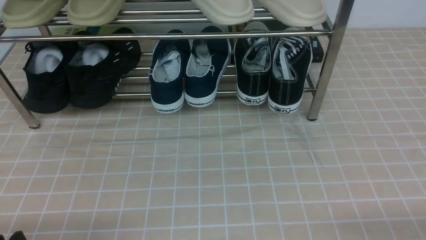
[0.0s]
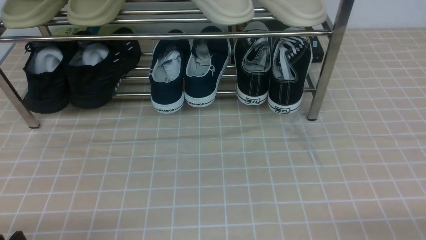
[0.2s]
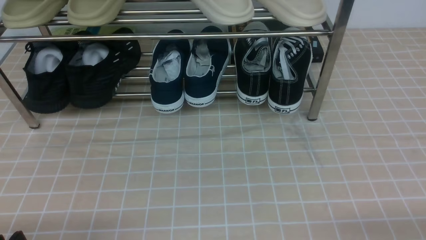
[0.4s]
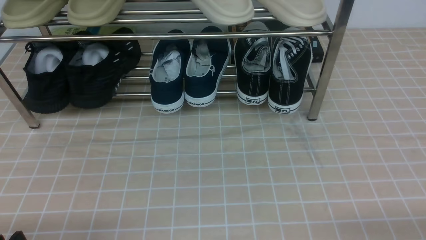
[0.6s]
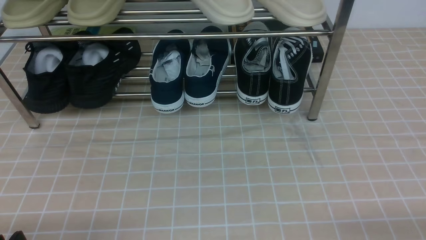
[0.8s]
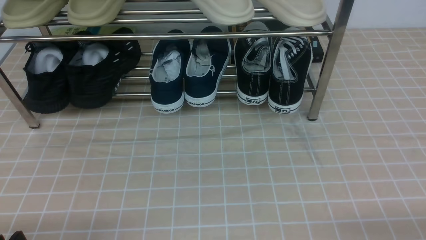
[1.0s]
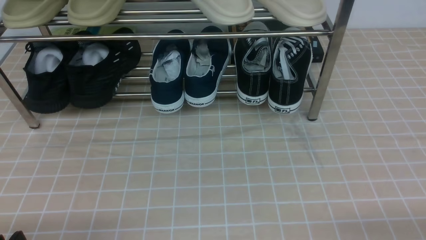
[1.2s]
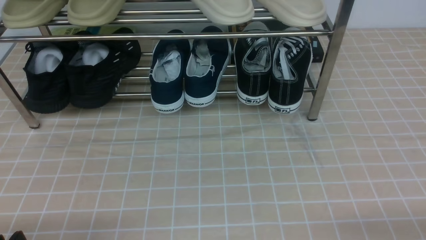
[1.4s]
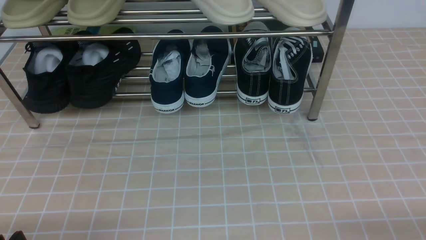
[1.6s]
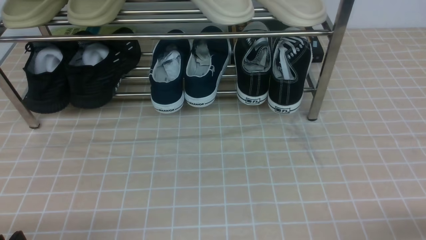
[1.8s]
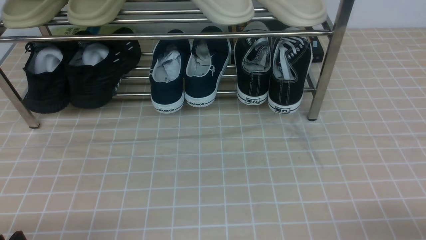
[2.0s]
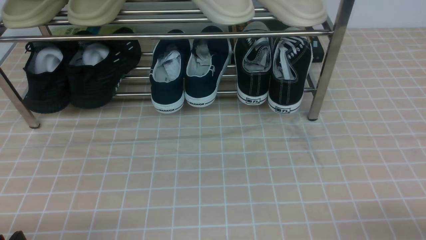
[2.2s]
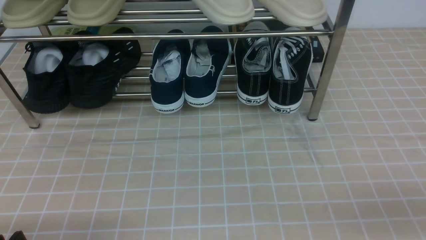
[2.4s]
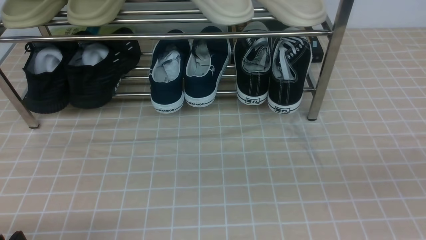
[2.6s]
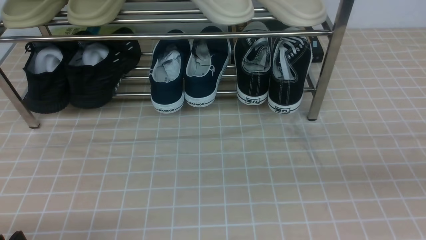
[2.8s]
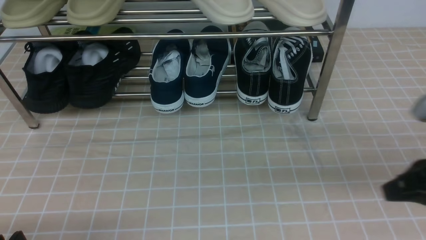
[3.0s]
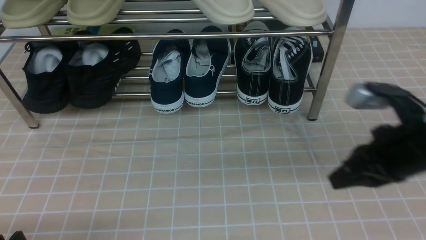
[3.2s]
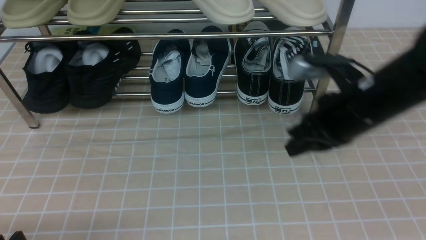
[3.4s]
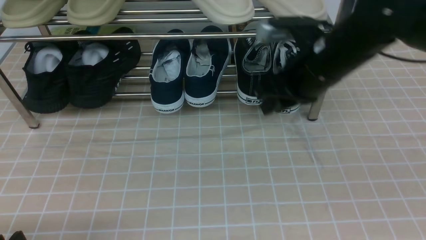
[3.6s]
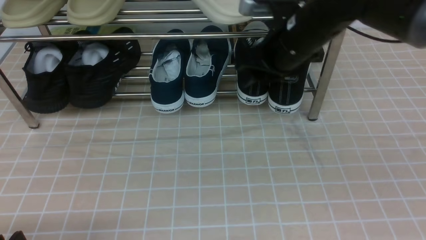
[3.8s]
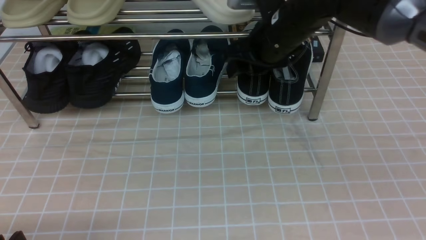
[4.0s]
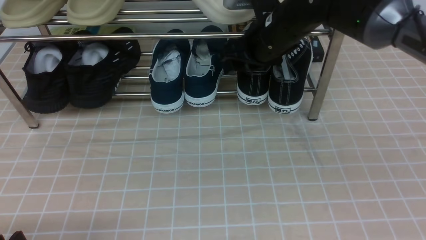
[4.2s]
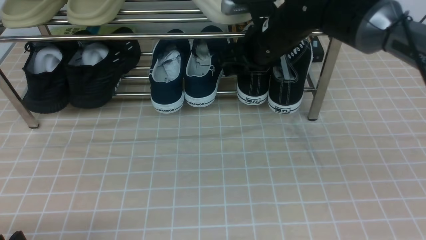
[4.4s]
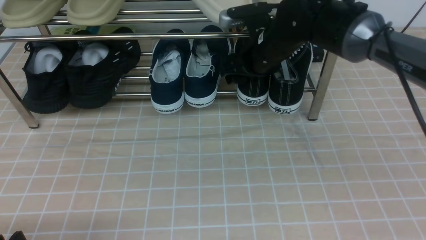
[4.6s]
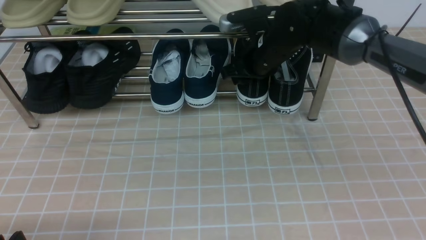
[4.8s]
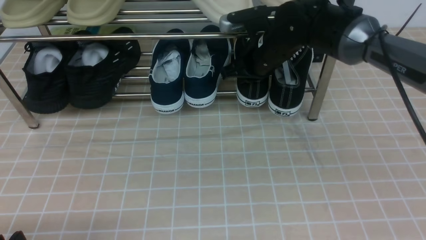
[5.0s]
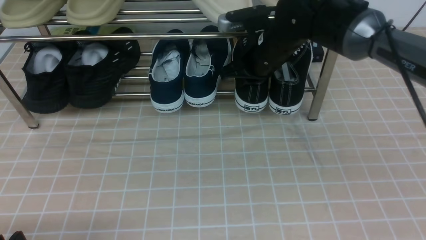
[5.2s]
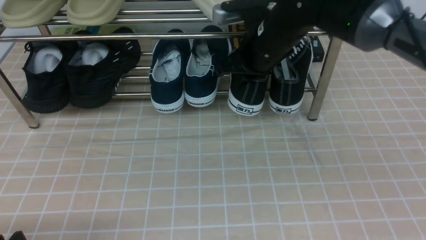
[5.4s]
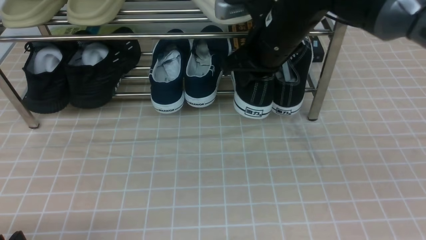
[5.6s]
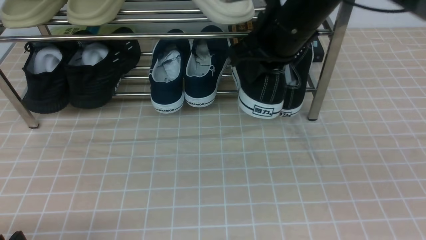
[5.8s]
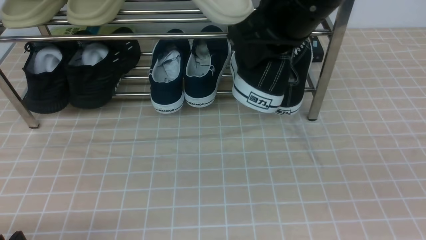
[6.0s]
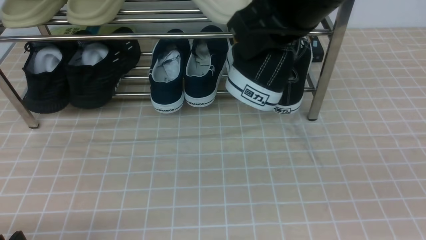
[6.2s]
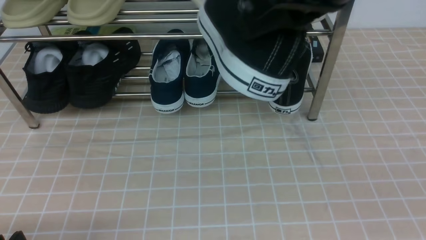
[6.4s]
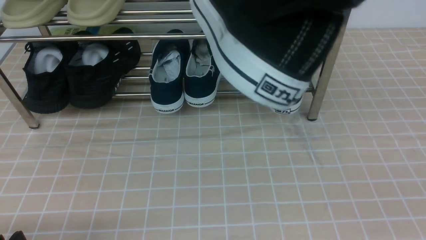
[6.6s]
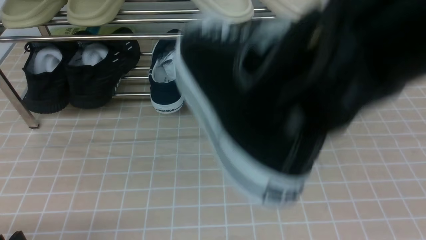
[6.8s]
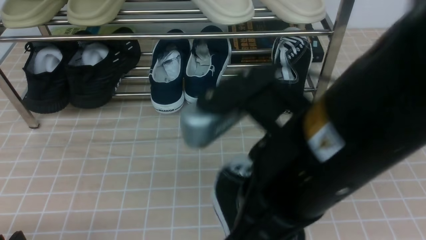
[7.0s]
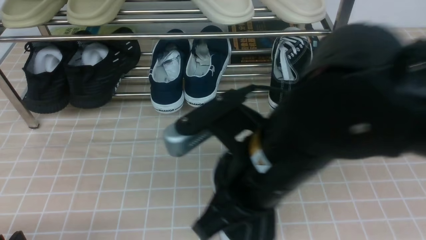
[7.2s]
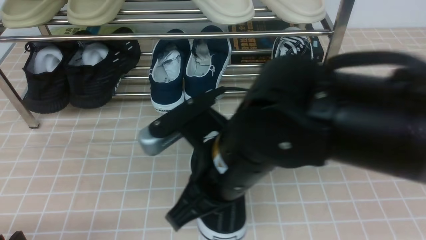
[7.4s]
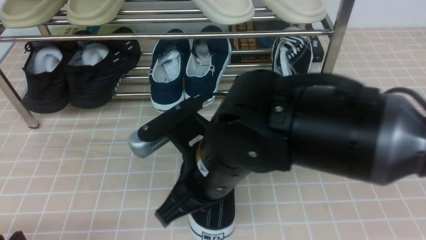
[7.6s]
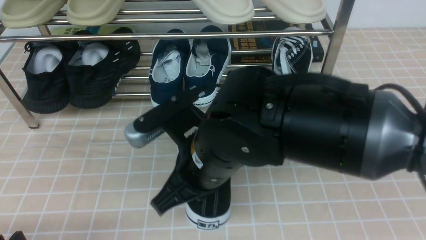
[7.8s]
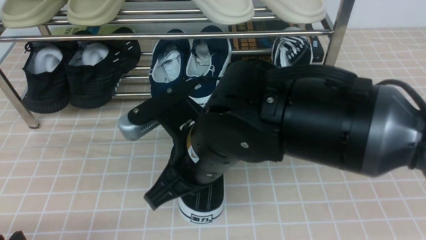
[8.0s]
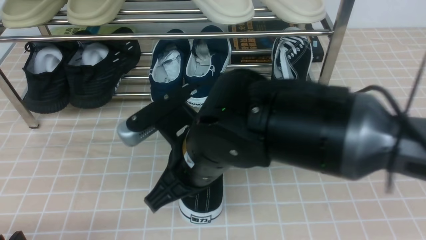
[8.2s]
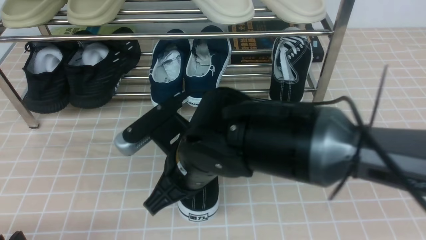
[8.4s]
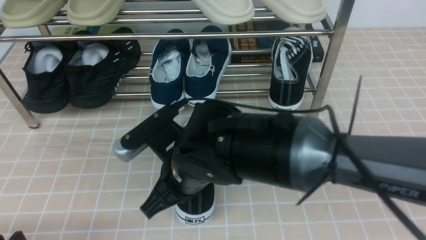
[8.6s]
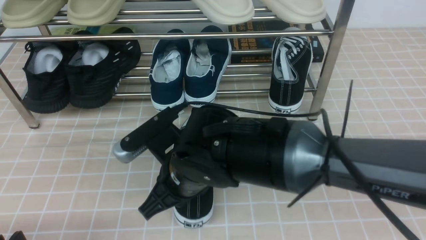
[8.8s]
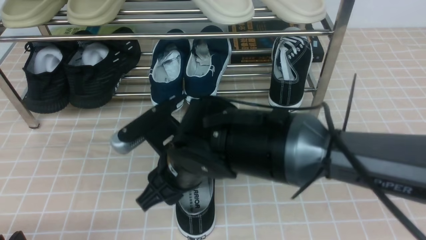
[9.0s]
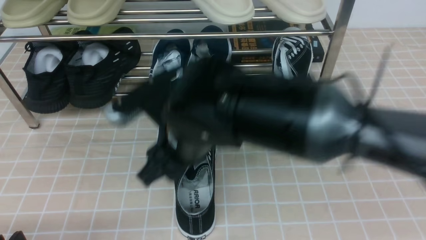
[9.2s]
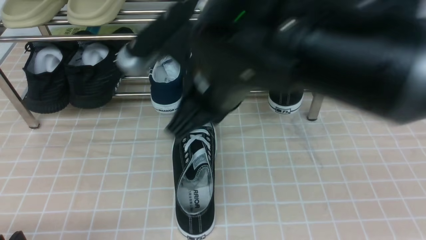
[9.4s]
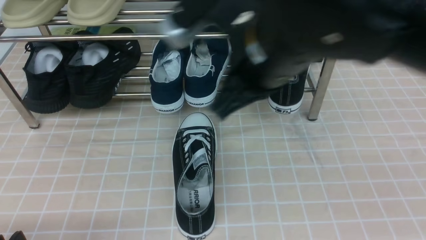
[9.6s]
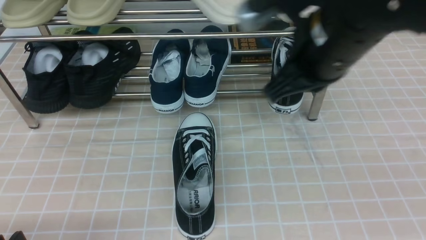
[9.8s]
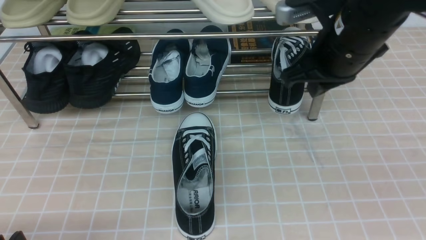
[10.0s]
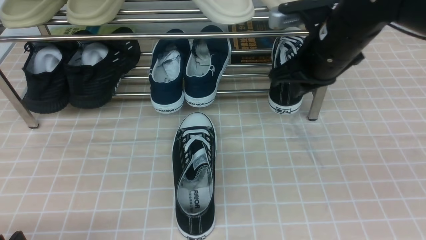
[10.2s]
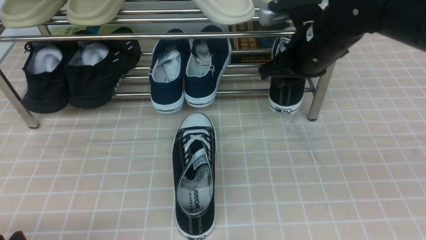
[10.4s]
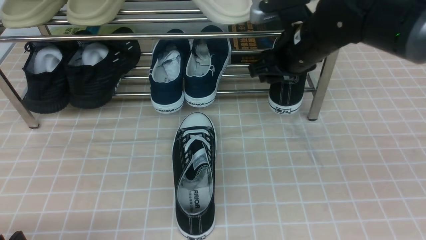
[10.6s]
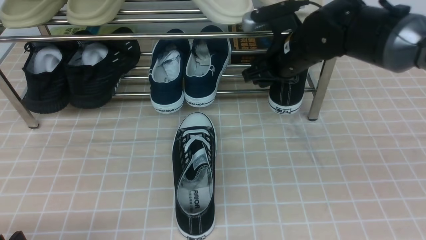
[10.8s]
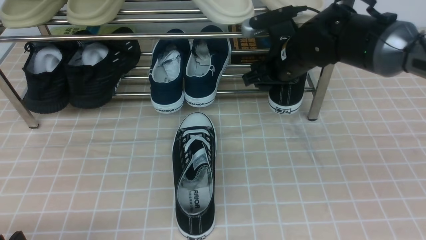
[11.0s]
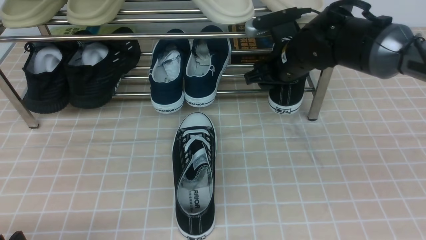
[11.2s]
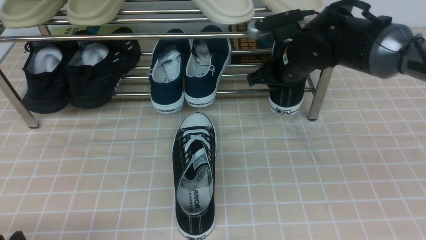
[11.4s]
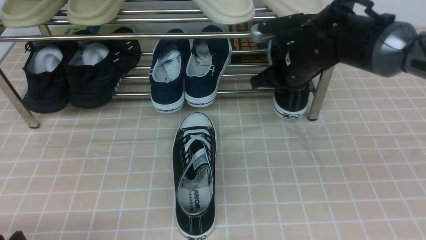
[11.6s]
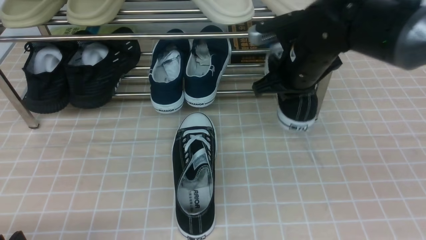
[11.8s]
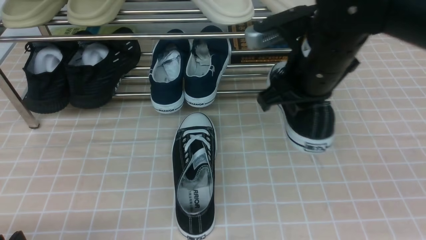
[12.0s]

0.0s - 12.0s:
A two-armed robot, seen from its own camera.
Step, 0.0s - 4.8s: use the right arm to clamp a shoe on the right side of the shoe rack.
Step, 5.0s - 8.8s: use the right arm to take out the clamped shoe from the shoe rack and put it down.
Step, 9.0s - 11.2s: use the right arm to clamp a shoe on the right side of the shoe rack.
1.6s - 3.0s: The right gripper travels forward, upward and to the left by about 20 cm, and closes its fingers.
3.0s - 4.4s: The right gripper heads forward and to the left, covering some 30 cm, and opens.
4.4s - 6.0s: The right gripper heads backward and upward, covering roughly 20 cm, and closes its fingers.
6.0s - 7.6s: The right gripper heads downward, to the left and backward, covering approximately 20 cm.
7.6s - 9.0s: The right gripper moves approximately 5 cm, and opens.
9.0s - 10.4s: The right gripper is displaced to the right and forward by roughly 20 cm, and closes, then reopens.
10.4s - 12.0s: The right gripper heads backward, covering about 5 cm, and closes.

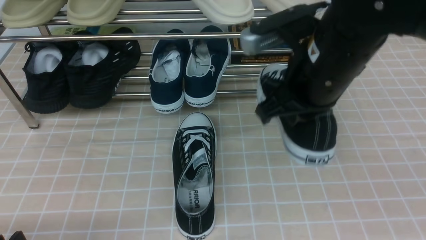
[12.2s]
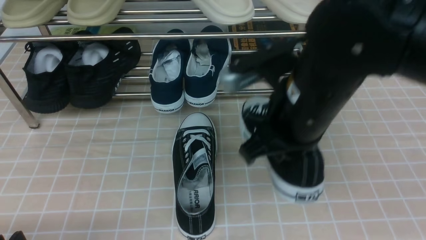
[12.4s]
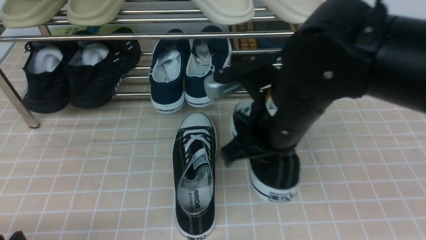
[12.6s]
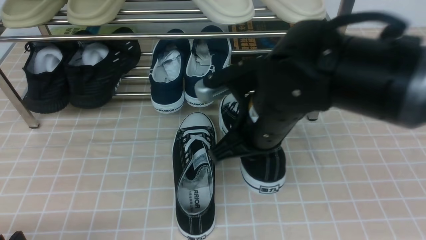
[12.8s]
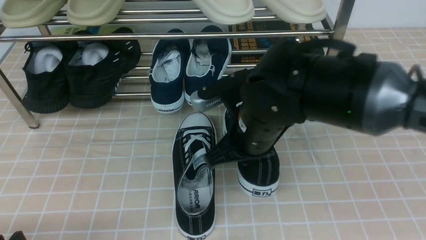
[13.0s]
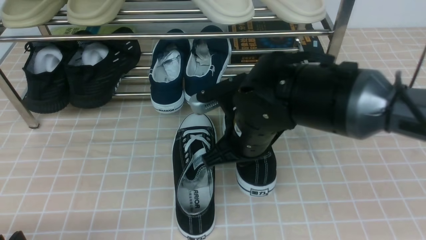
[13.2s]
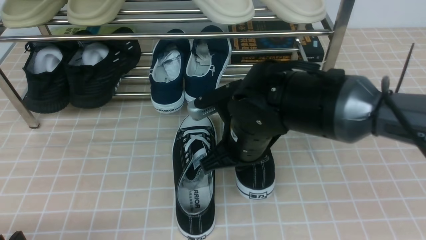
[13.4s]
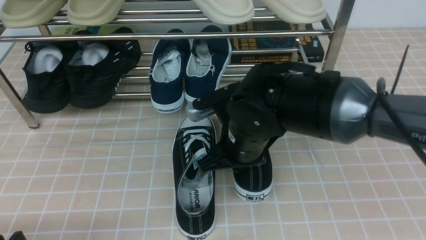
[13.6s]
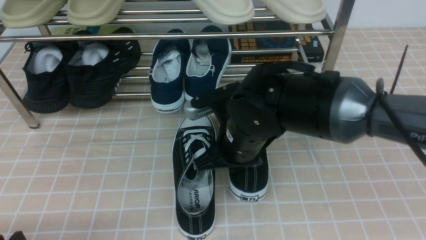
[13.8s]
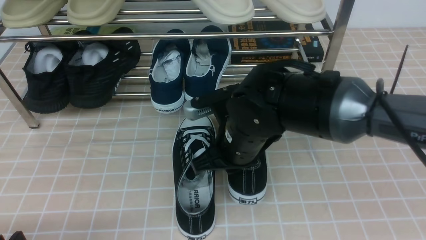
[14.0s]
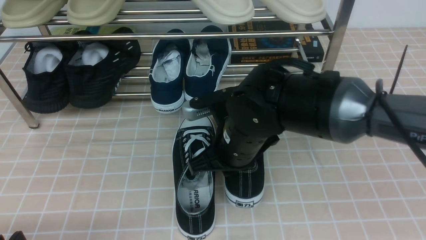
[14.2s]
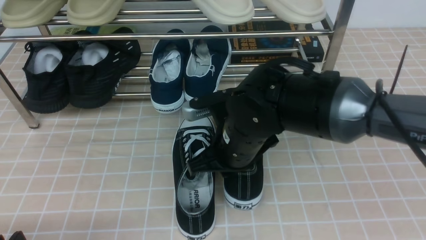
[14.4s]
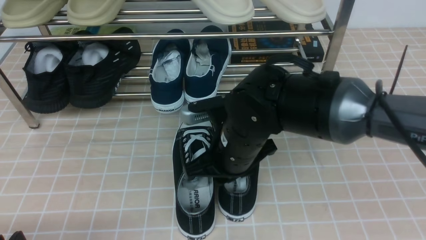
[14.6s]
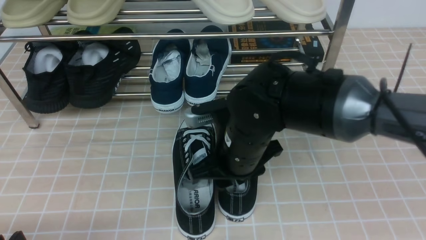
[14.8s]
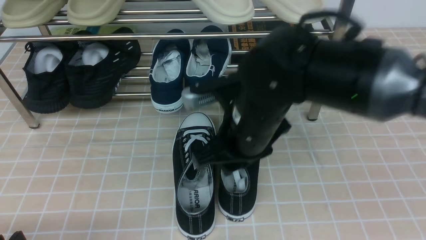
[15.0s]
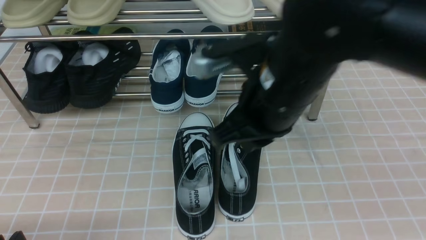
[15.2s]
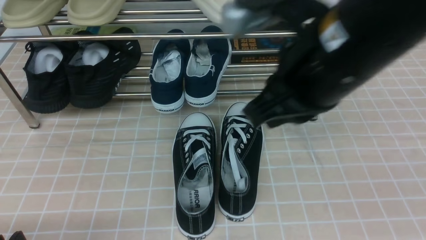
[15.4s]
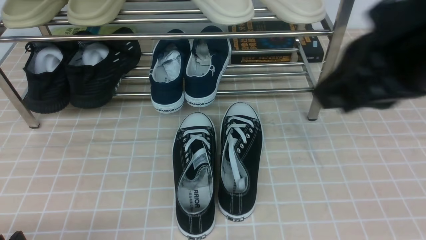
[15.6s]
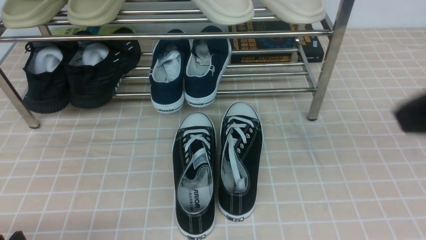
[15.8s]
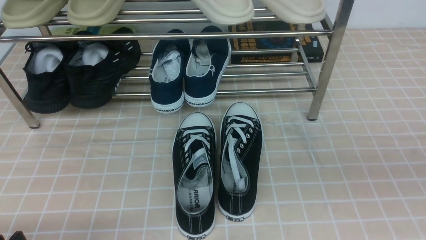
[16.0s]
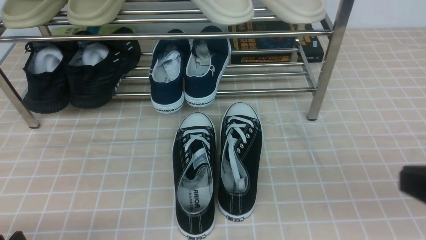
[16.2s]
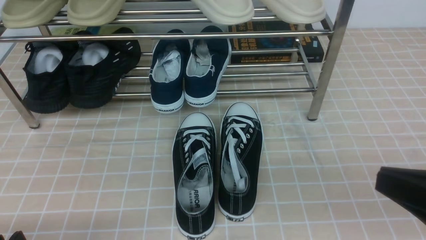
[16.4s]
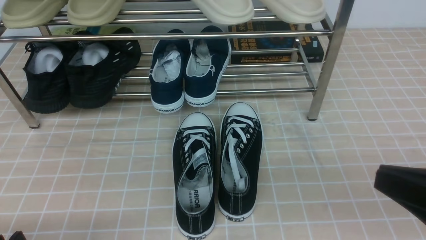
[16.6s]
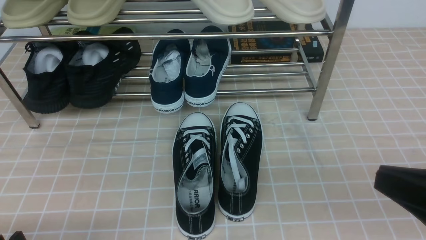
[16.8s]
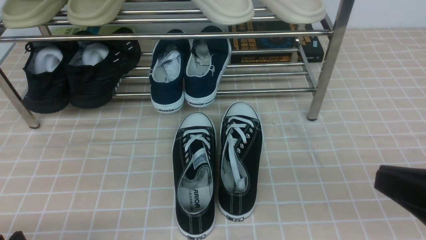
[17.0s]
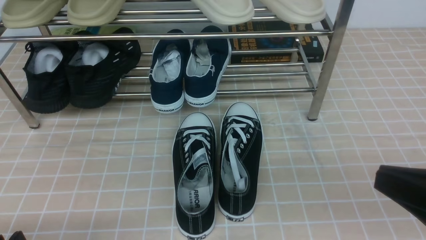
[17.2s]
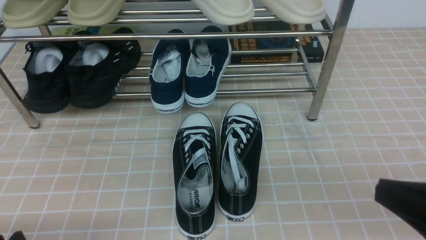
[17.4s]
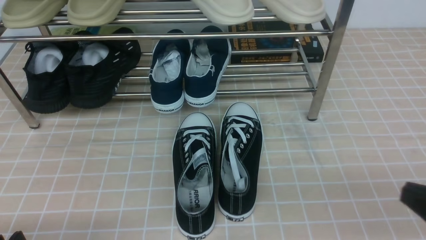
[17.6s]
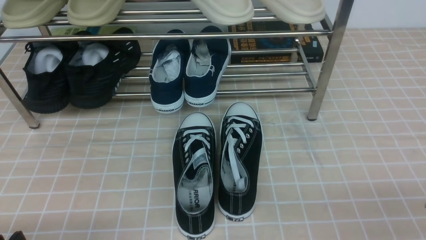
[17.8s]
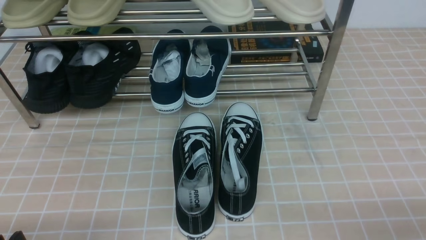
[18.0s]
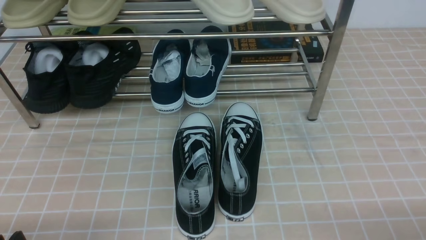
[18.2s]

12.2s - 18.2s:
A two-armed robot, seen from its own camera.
Step, 12.2s - 14.6s: use the right arm to take out the clamped shoe from the shoe rack and put it down.
12.2s - 13.8s: The right gripper goes approximately 15 cm downward and to the left.
13.8s - 15.2s: The right gripper moves upward, about 15 cm, and opens, then closes again.
15.2s - 16.6s: The right gripper goes about 25 cm to the right and backward.
16.6s - 18.2s: The right gripper travels downward and to the right by roughly 15 cm.
